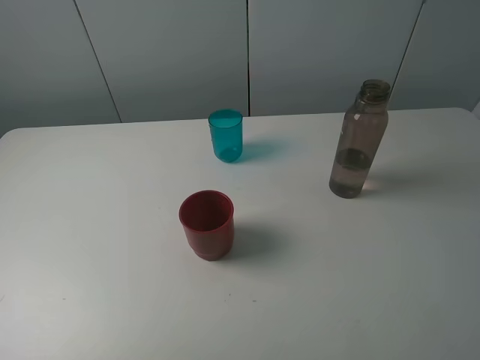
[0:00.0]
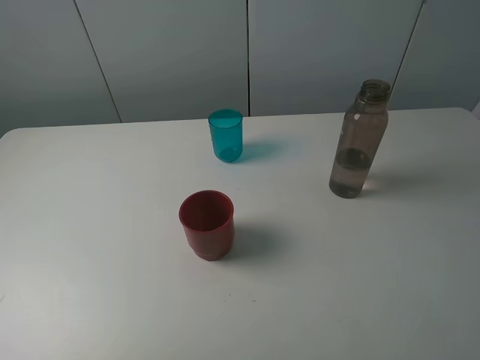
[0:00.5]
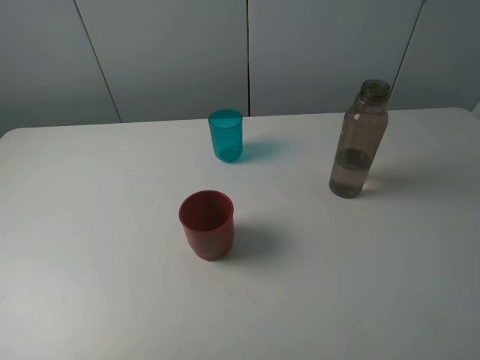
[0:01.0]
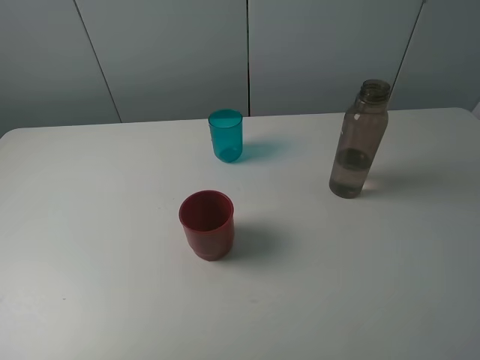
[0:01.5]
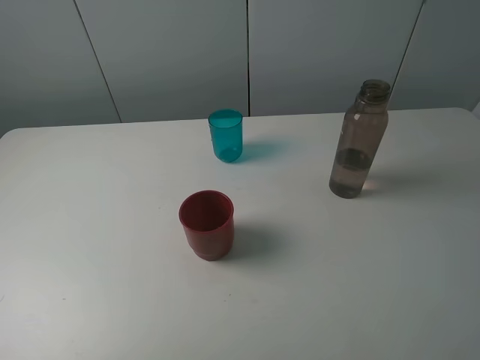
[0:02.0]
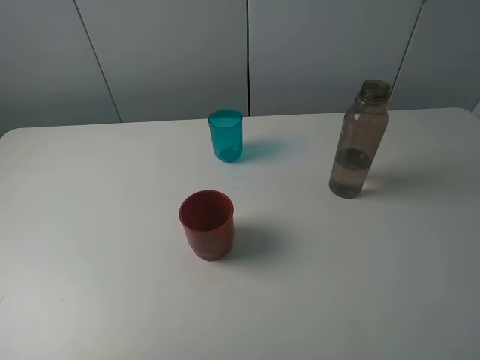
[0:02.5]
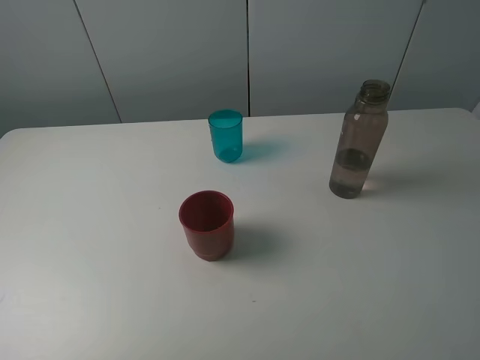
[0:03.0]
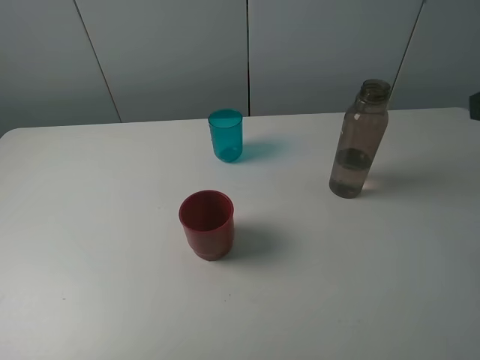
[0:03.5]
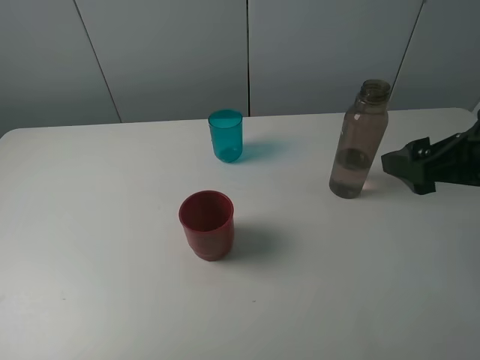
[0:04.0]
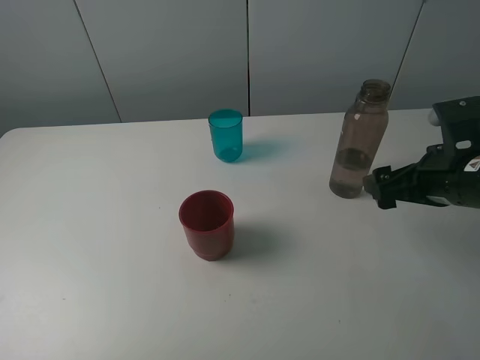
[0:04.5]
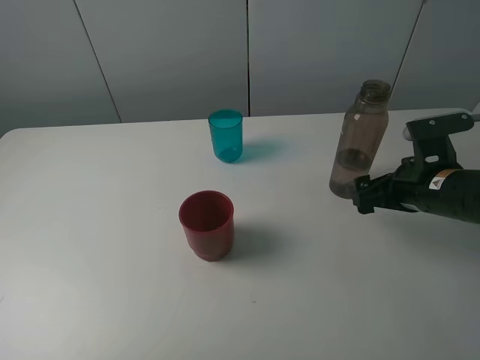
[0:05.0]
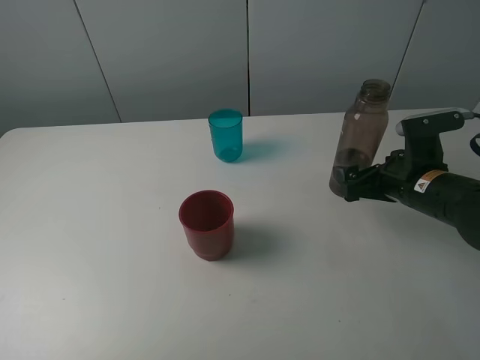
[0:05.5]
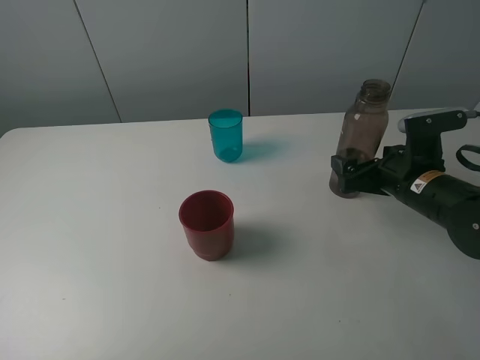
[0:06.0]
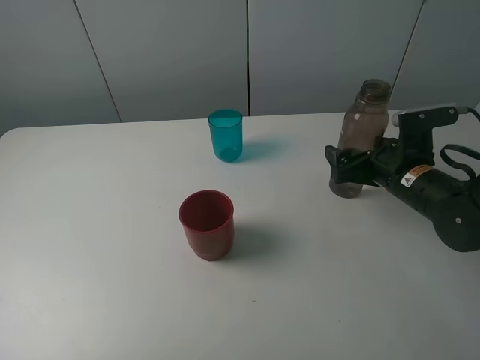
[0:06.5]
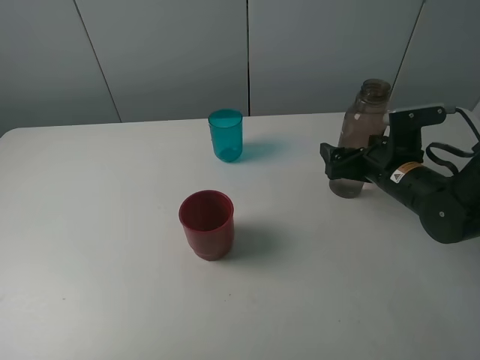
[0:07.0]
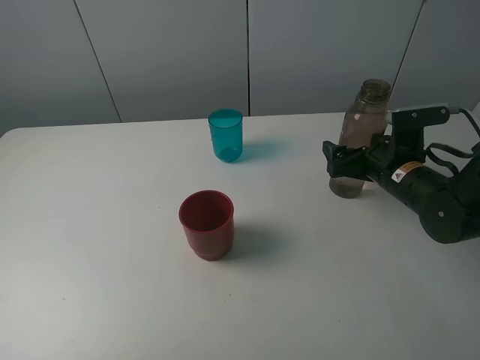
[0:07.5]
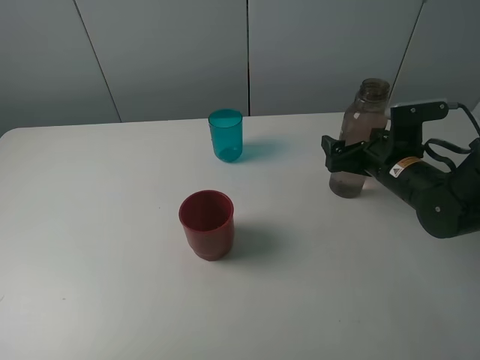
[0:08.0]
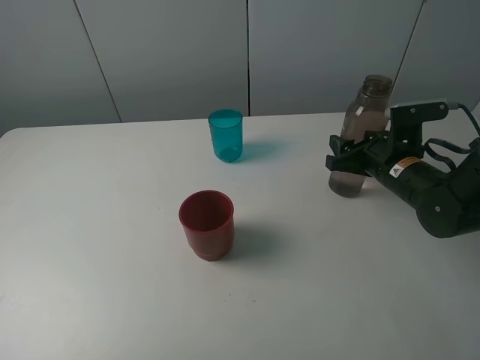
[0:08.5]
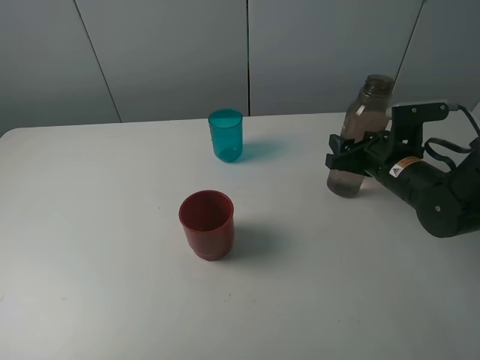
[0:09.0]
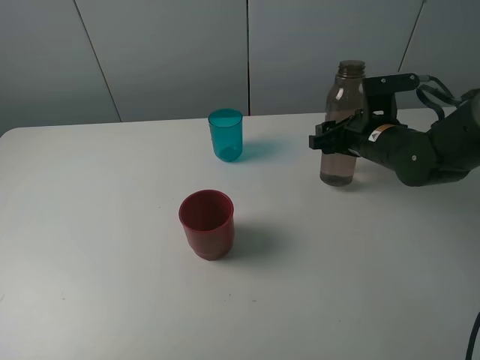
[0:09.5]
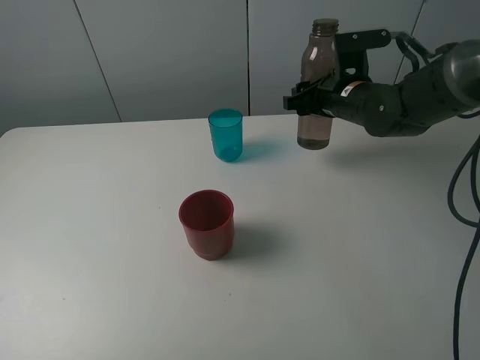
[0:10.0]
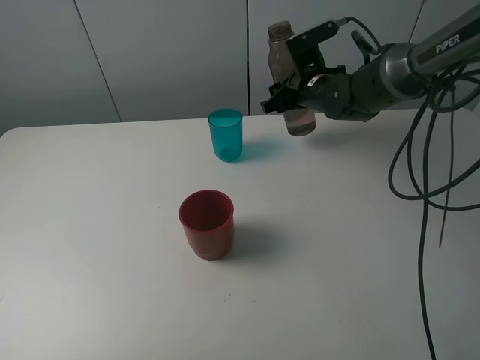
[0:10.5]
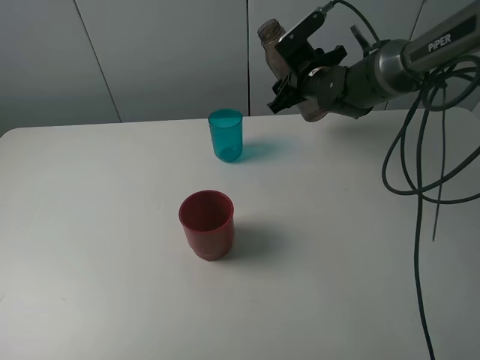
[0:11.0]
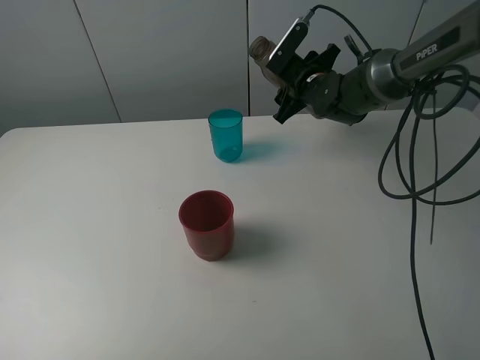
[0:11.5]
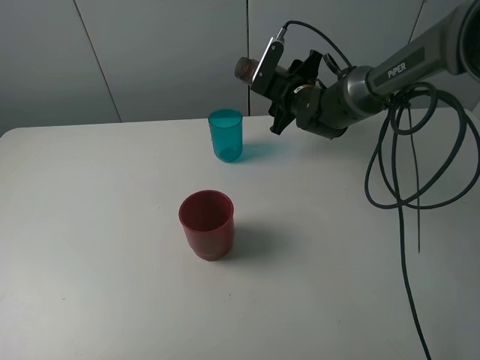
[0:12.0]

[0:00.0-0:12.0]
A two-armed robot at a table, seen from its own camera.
Task of the whole recording: pick up the bottle and pour water into the cup, then pick up the cup containing water and pour it into another cup.
Step, 0:00.0 to 0:08.5: Grasp the brown bottle with the right gripper.
0:00.0 to 0:02.0: Both grippers stay put.
0:02.0 to 0:04.0: The right gripper heads forward, covering approximately 20 cm.
0:04.0 to 0:06.0: The right gripper is displaced downward and forward by about 15 cm.
0:06.0 to 0:08.0: The grippers stay close to where they were, moving slightly.
0:08.0 to 0:10.0: The right gripper shifts approximately 15 cm forward, to the left and upward, and closes.
0:10.0 to 0:12.0: The right gripper goes some 5 cm forward.

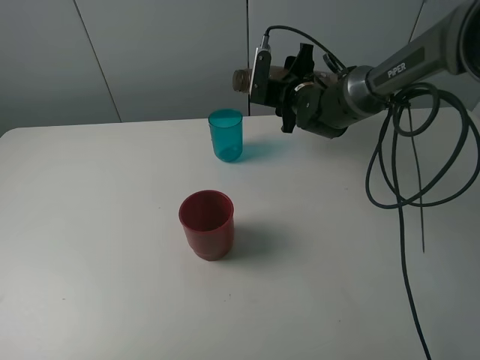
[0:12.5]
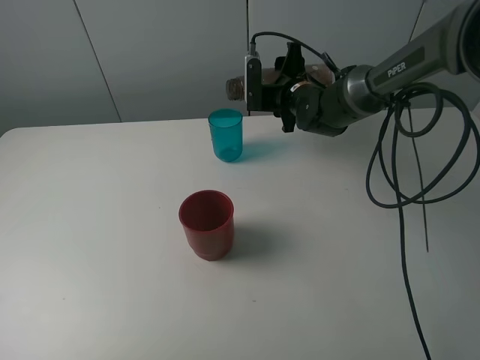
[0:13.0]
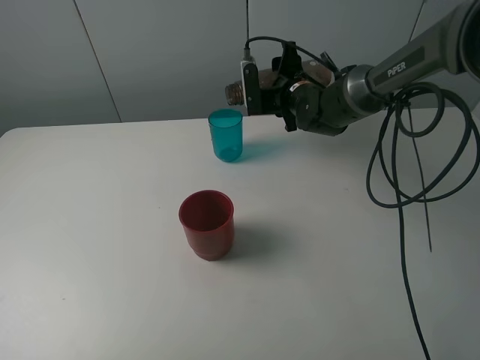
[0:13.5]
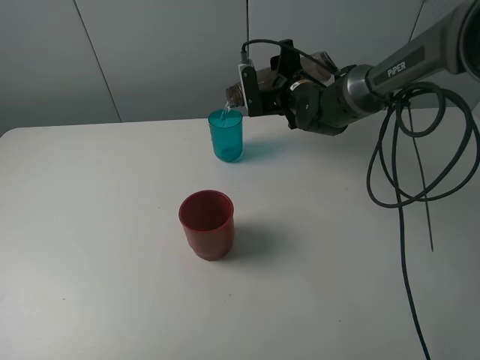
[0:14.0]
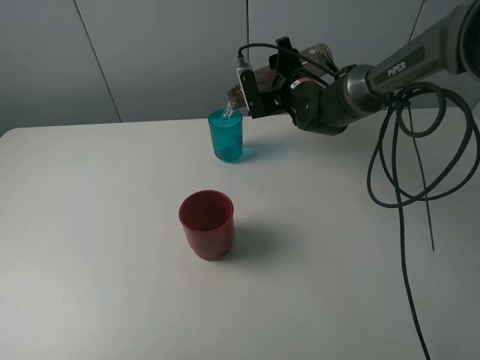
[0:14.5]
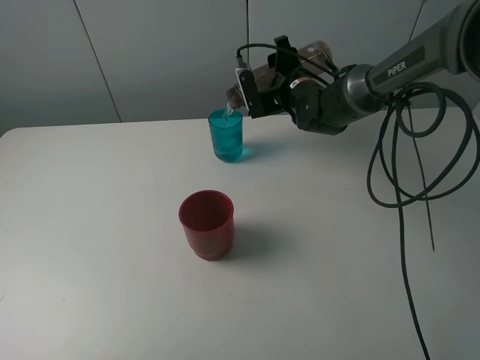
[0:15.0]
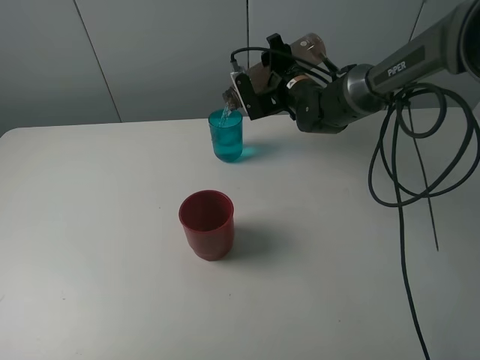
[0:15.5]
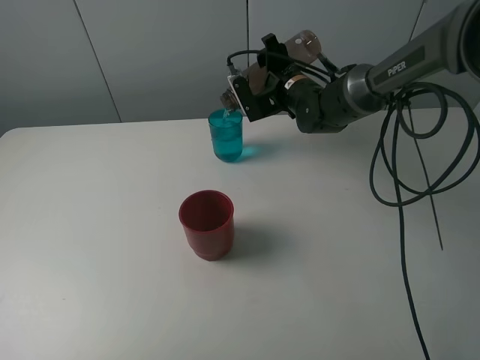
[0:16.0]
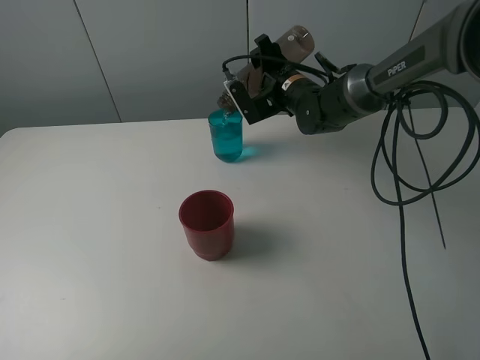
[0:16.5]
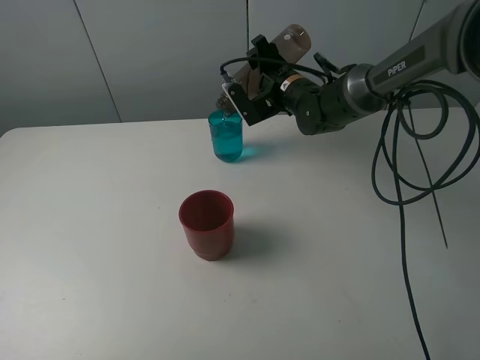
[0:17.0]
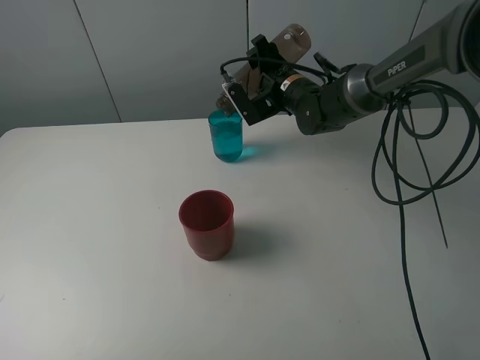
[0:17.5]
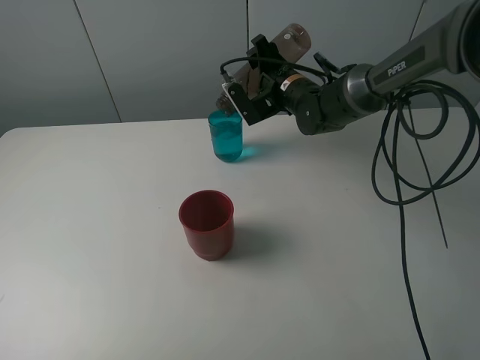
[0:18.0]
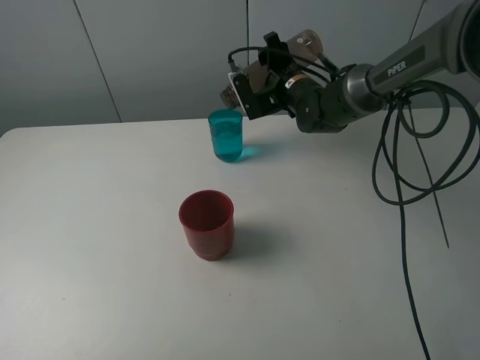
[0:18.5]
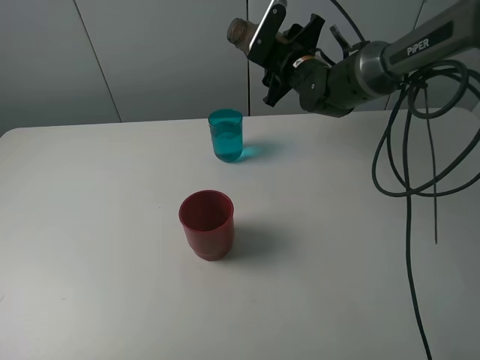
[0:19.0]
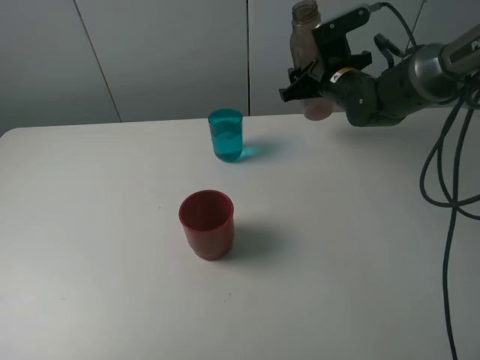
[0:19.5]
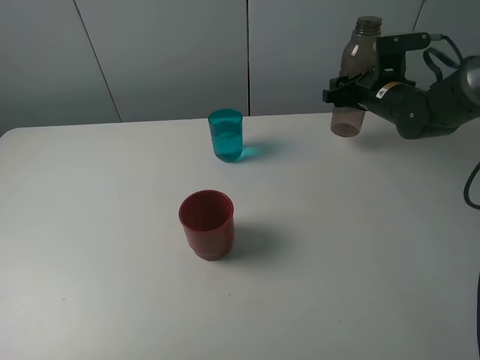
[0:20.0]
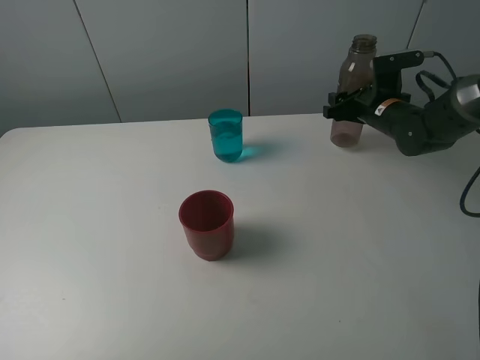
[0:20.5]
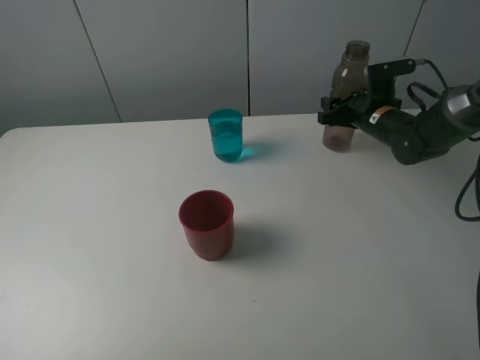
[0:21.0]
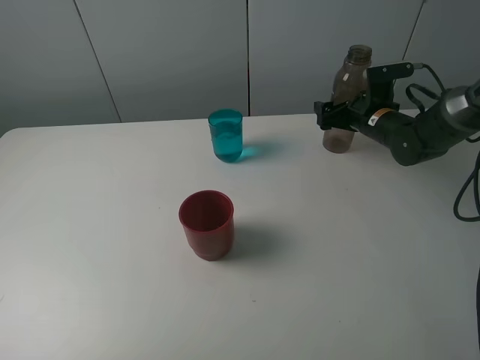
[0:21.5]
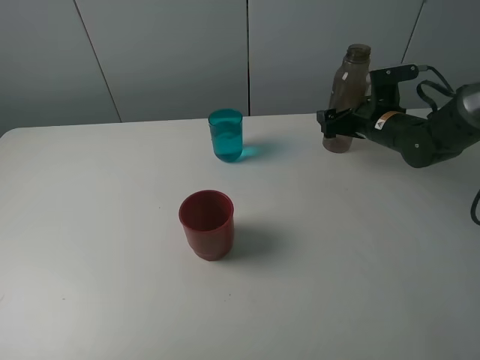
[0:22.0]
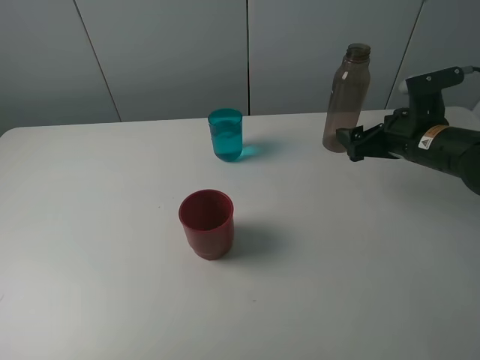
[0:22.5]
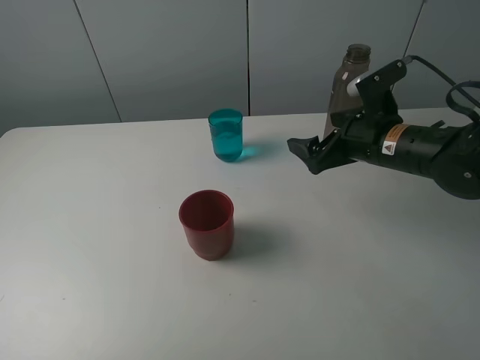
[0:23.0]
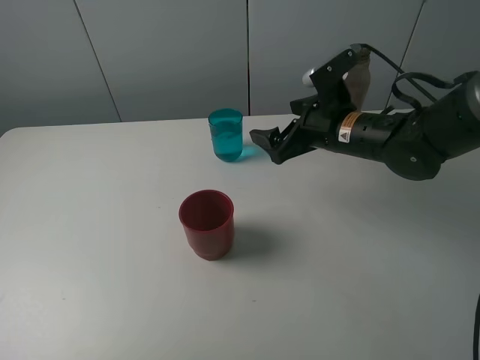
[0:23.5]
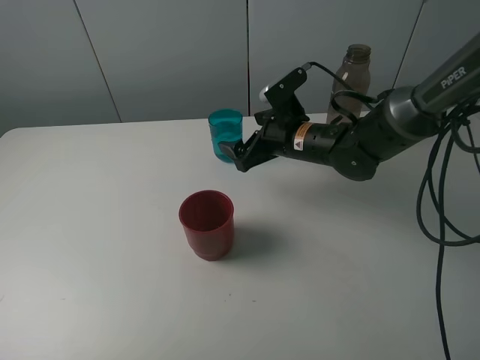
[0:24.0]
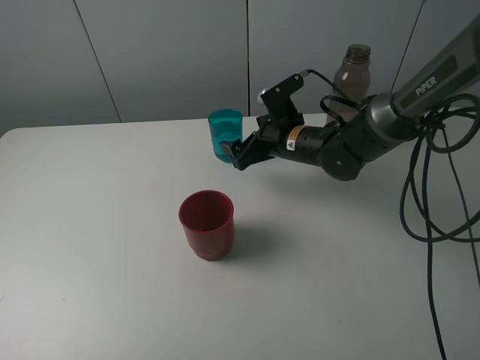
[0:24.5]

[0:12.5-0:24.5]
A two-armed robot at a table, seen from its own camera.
Task of the whole recording: pick up the bottle and pour water into the cup, then pick up the cup containing water and pour it into another cup.
Step, 0:12.5 to 0:18.5: Pour water from brown bottle to blue cup with the right gripper.
Step, 0:19.0 to 0:21.5: Place the brown bottle with the right gripper.
0:14.5 to 0:18.5: The grippers move only a little.
0:18.5 to 0:20.5: The right gripper moves to the right, some 15 cm.
0:20.5 to 0:22.5: The right gripper heads backward, covering approximately 10 cm, and opens.
0:22.5 to 0:24.5: The right gripper shifts about 15 cm to the left.

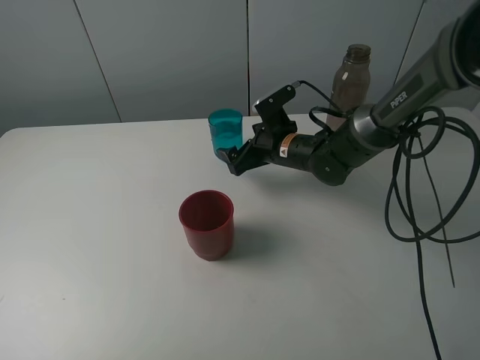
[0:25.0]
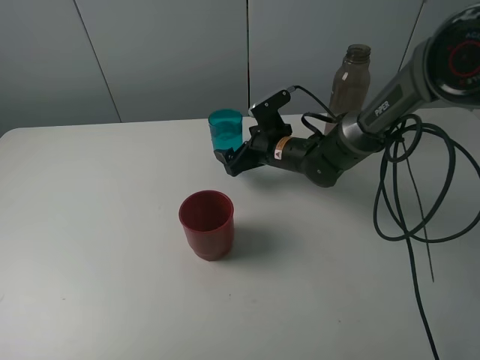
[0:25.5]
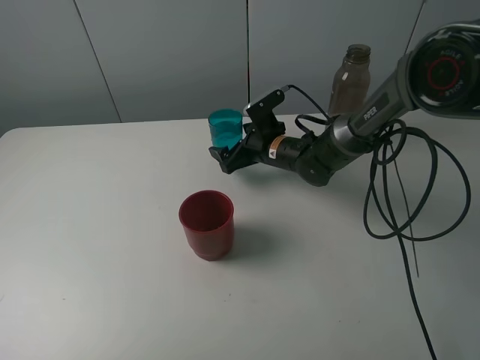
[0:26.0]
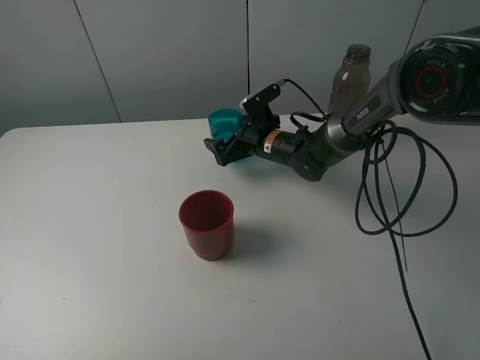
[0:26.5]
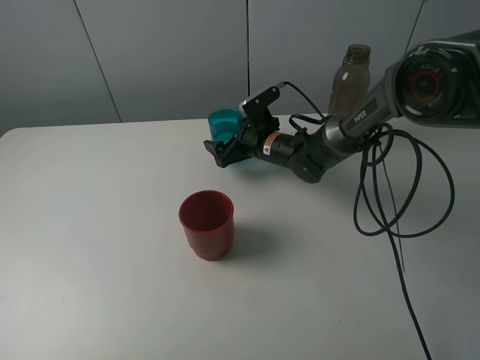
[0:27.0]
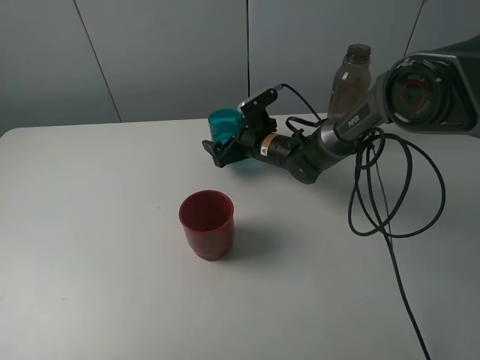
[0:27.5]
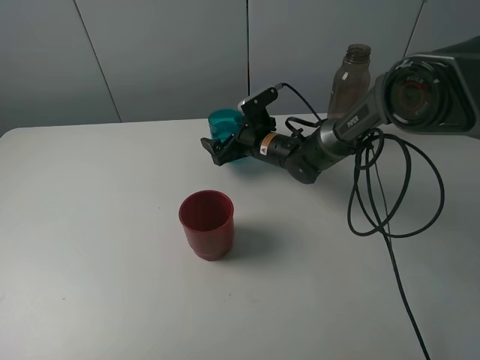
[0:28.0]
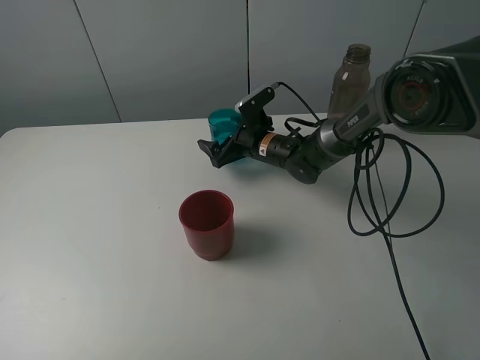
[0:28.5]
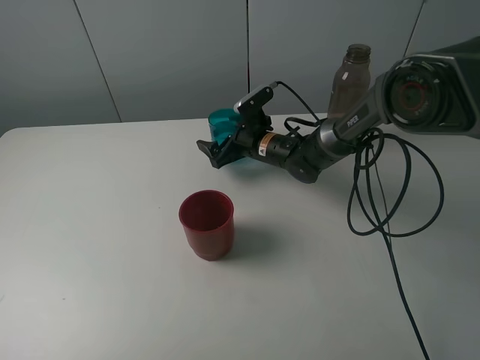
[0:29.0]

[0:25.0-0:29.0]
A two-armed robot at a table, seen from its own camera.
Task of the whole recording: pick up the bottle and pour water into the cup, then pick up the cup containing water and pour it into another cup.
0:25.0 to 0:27.0: The right gripper shifts by roughly 5 cm.
0:27.0 to 0:29.0: Neither gripper changes place.
